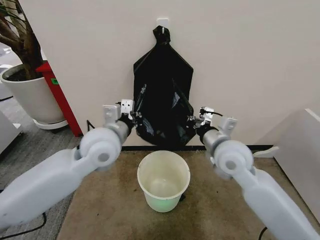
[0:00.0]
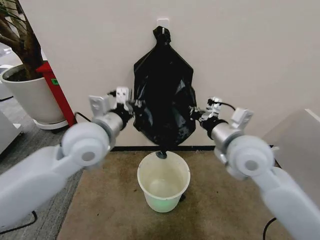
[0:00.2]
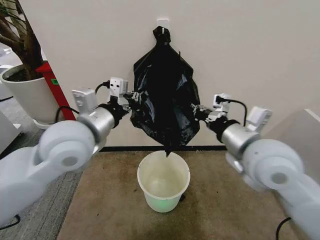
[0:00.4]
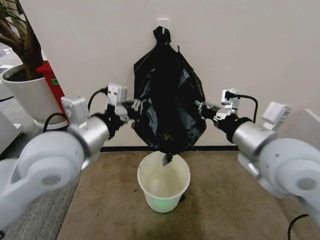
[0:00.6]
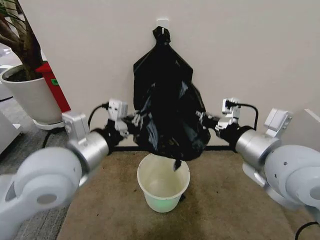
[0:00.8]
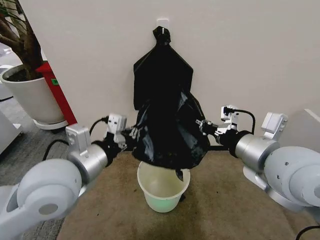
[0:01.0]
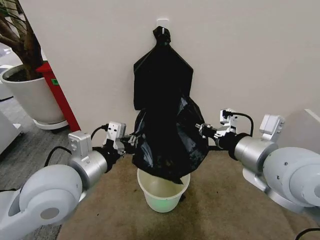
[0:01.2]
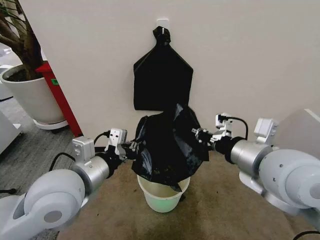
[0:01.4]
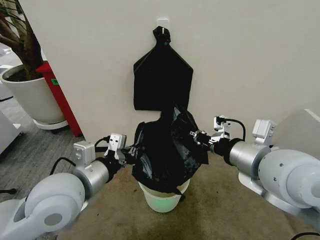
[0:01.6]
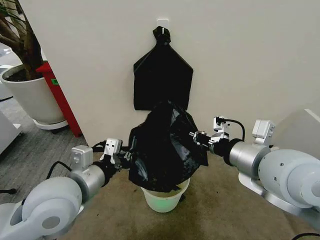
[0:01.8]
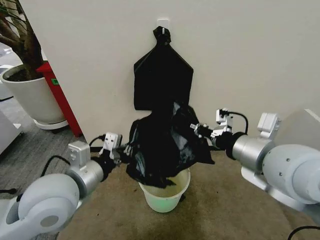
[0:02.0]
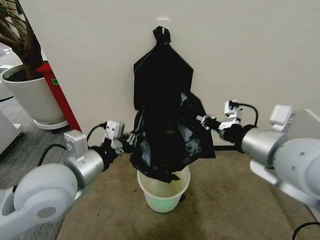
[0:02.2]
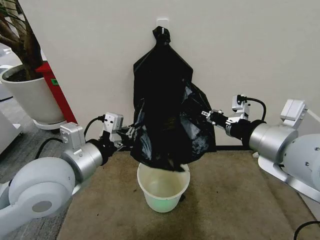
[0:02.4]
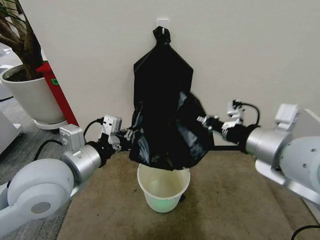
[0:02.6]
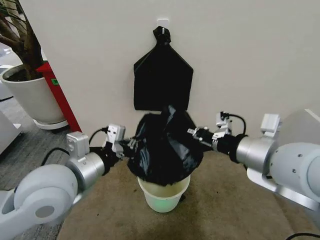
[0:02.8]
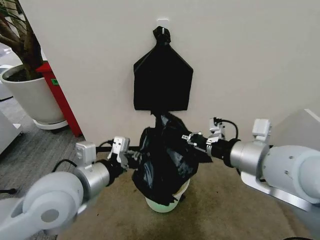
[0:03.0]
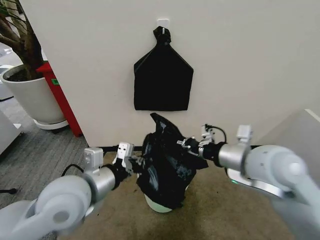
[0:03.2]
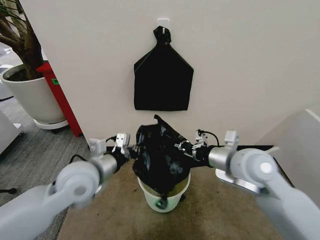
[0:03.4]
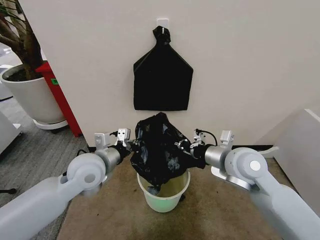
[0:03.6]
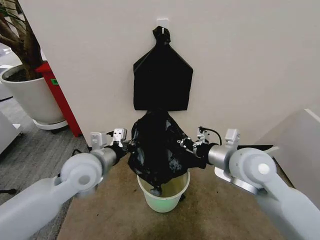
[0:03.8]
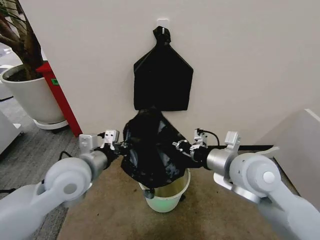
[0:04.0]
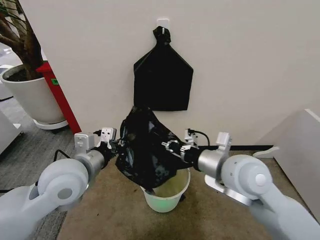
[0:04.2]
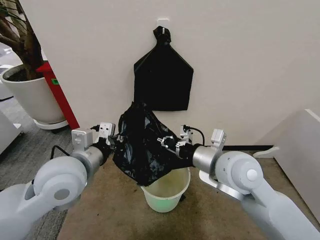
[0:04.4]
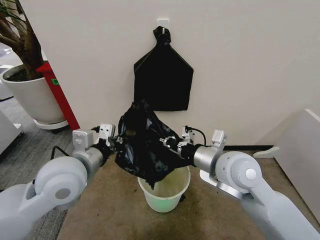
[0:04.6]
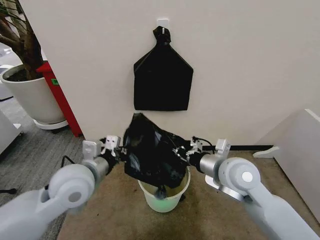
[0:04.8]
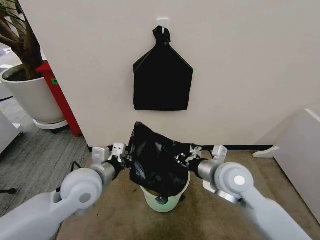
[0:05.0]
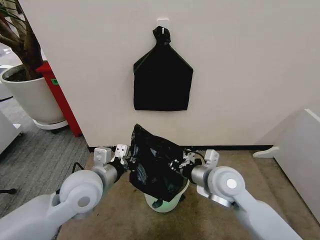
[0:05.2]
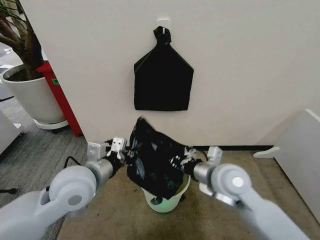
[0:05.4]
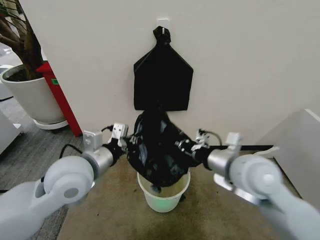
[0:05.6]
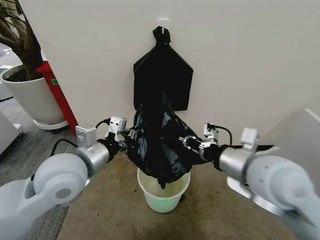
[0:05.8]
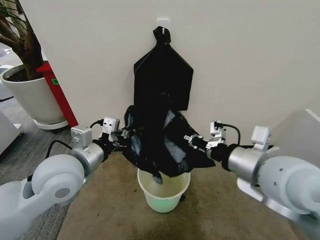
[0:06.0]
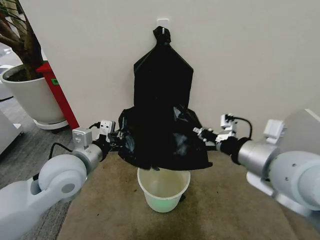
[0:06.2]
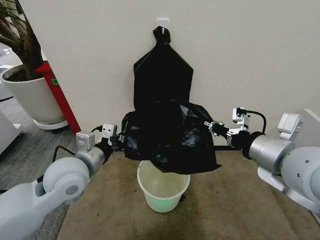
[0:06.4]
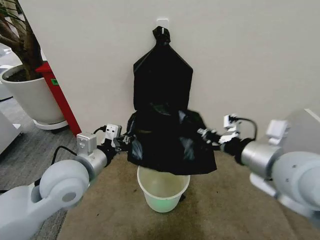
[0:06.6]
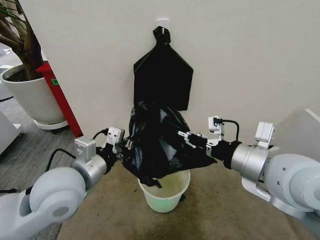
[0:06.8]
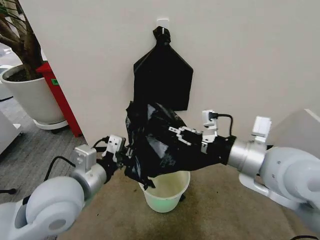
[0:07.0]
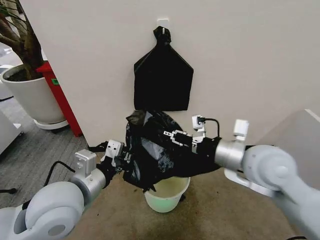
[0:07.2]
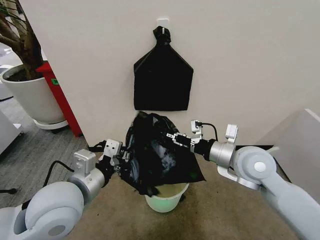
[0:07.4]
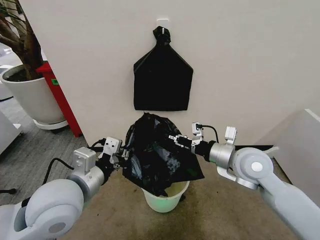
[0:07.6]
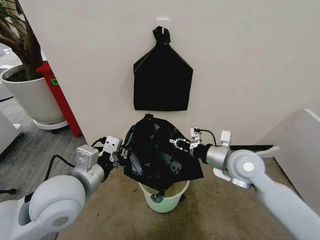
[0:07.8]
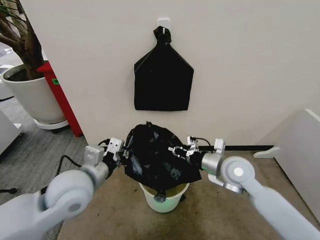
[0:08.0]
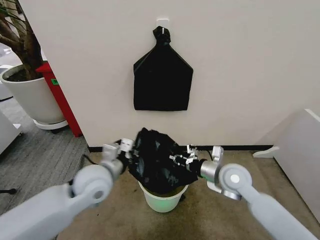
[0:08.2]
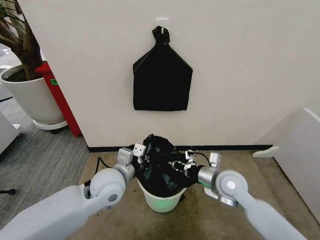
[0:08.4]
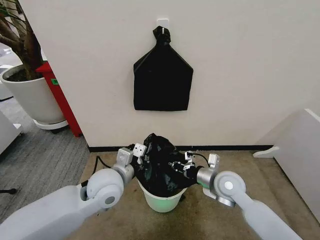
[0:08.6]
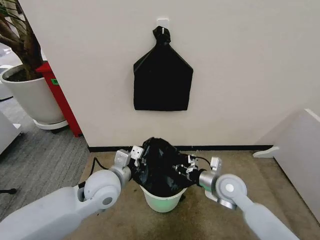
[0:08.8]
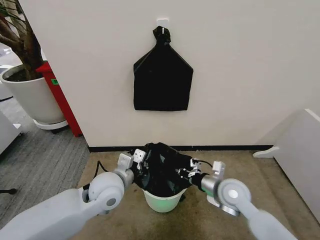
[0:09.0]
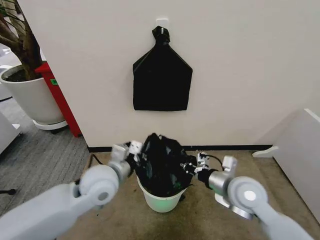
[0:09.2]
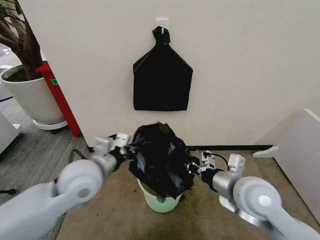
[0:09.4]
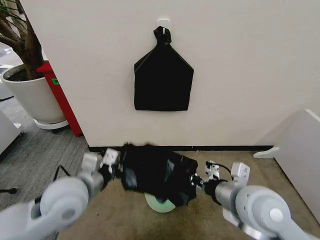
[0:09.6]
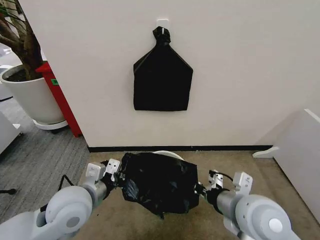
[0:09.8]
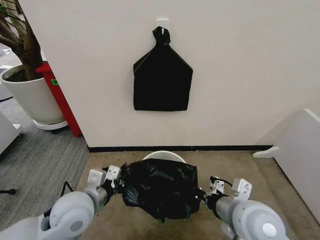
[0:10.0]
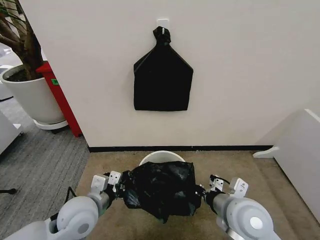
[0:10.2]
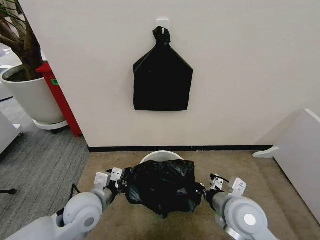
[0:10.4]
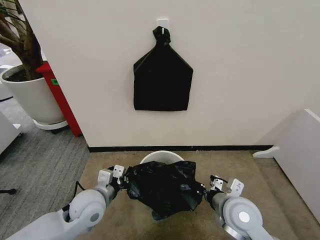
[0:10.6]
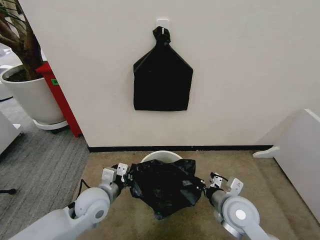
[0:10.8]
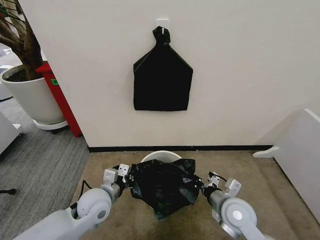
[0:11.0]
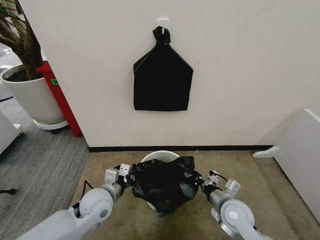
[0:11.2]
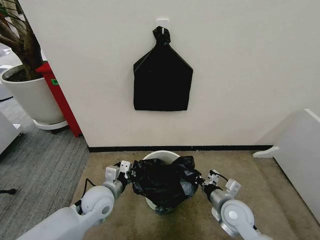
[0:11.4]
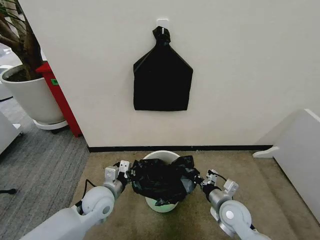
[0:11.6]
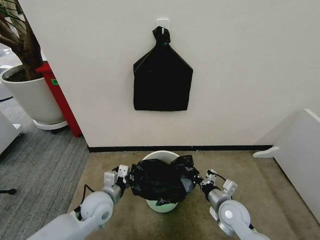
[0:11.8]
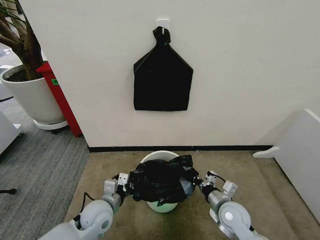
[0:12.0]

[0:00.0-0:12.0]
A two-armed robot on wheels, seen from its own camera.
Task of the whole recording: Place the garbage bag over the trash bin.
0:00.0 to 0:01.6: The right gripper is displaced backward and upward by roughly 15 cm; the left gripper is displaced backward by roughly 10 cm.
0:01.6 to 0:03.0: The grippers stay close to where they were, moving slightly.
0:03.0 to 0:04.4: The right gripper is displaced downward and to the left by some 10 cm.
0:04.4 to 0:06.0: The right gripper heads to the right, upward and backward, covering approximately 10 cm. The left gripper goes downward and returns, about 10 cm each way.
0:06.0 to 0:07.6: The right gripper travels downward and forward by about 15 cm; the left gripper is displaced backward by about 5 cm.
0:07.6 to 0:09.0: The right gripper goes some 10 cm downward; the left gripper moves downward, forward and to the right, some 15 cm.
0:09.0 to 0:10.4: The left gripper heads to the left, covering some 5 cm, and travels upward and back again, roughly 10 cm each way; the right gripper moves backward, about 5 cm, and reaches about 15 cm upward, then returns.
0:10.4 to 0:12.0: The left gripper moves downward, some 10 cm. The right gripper shifts some 15 cm downward.

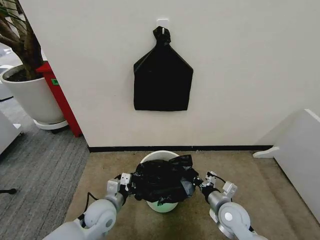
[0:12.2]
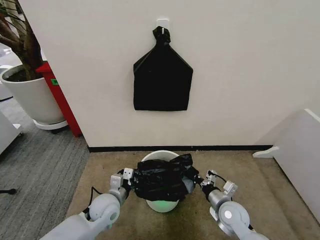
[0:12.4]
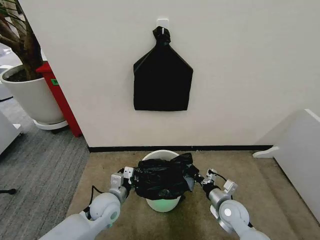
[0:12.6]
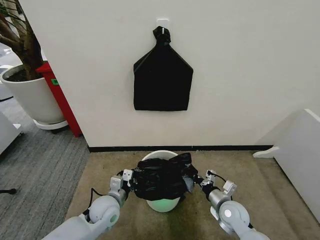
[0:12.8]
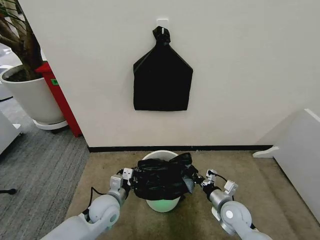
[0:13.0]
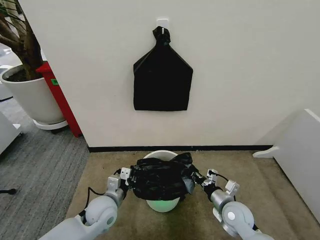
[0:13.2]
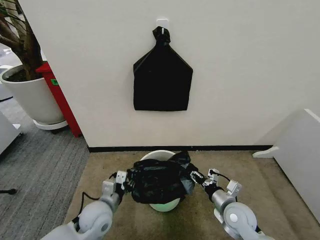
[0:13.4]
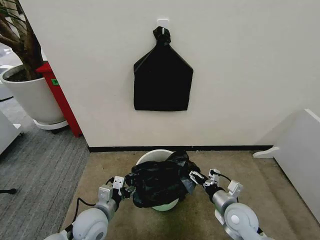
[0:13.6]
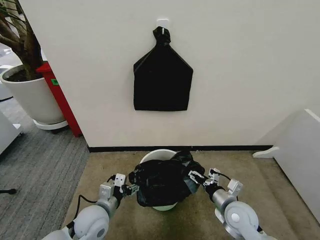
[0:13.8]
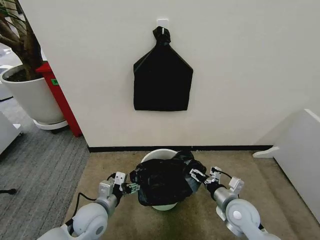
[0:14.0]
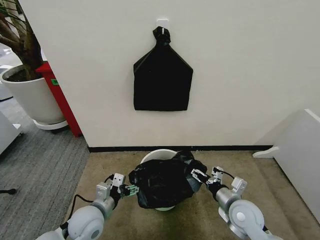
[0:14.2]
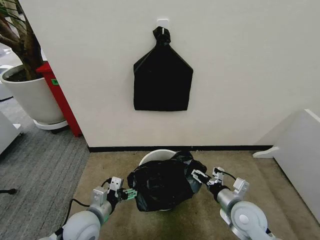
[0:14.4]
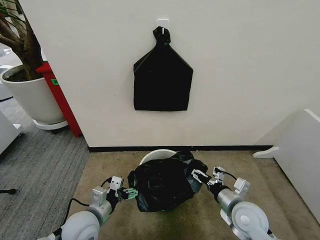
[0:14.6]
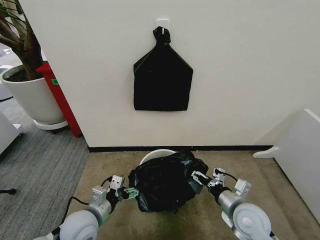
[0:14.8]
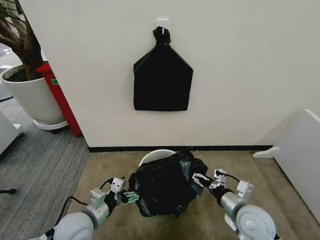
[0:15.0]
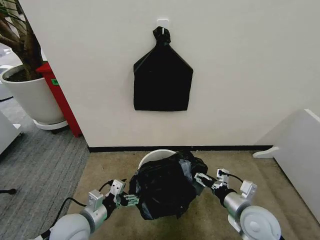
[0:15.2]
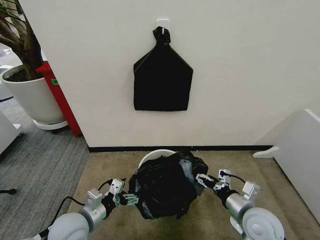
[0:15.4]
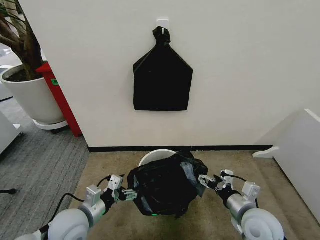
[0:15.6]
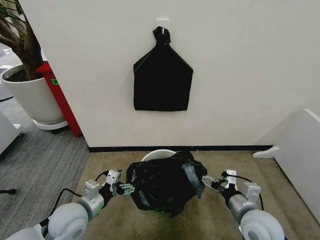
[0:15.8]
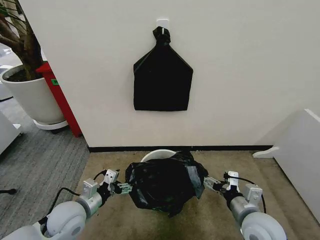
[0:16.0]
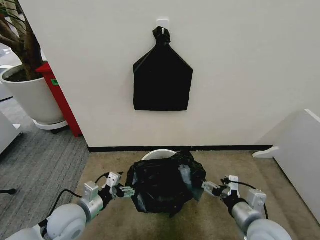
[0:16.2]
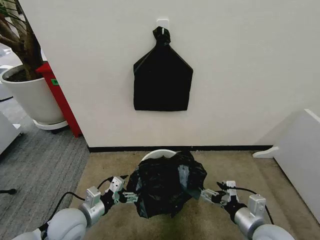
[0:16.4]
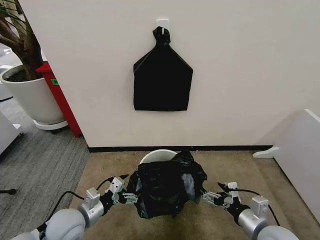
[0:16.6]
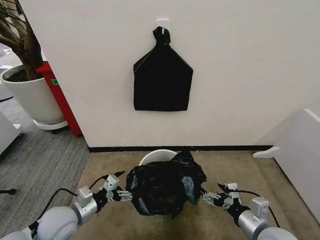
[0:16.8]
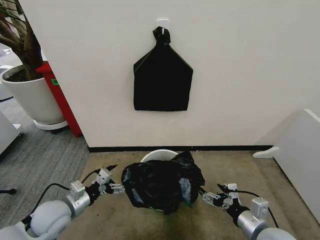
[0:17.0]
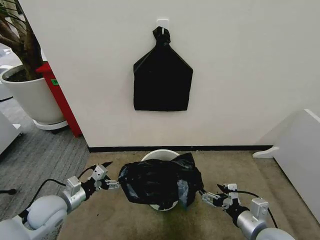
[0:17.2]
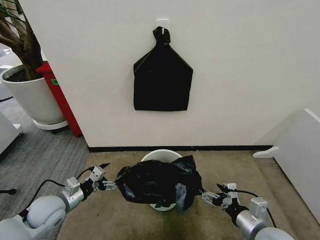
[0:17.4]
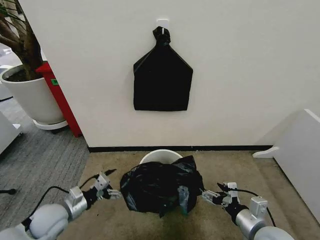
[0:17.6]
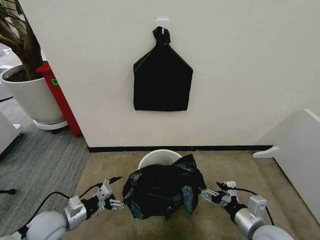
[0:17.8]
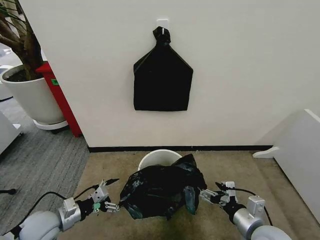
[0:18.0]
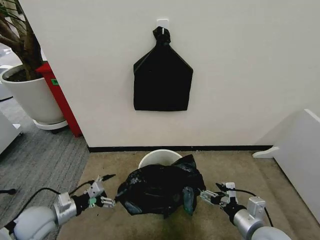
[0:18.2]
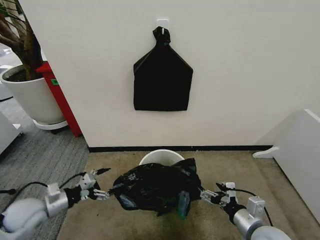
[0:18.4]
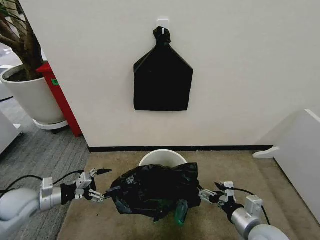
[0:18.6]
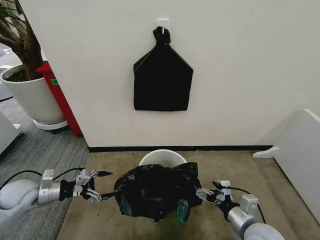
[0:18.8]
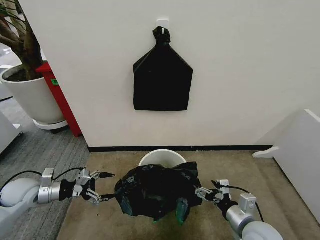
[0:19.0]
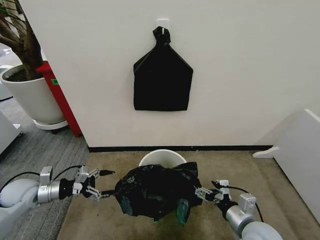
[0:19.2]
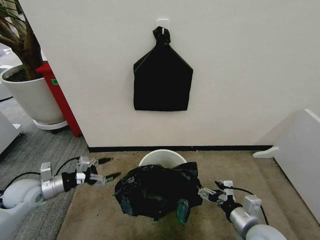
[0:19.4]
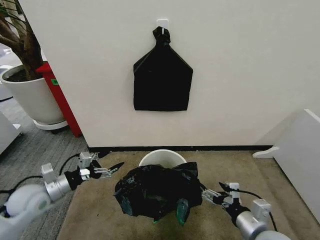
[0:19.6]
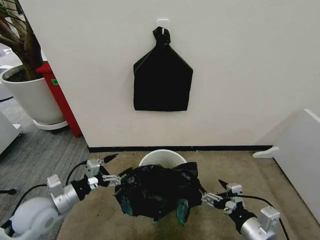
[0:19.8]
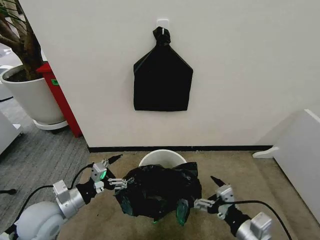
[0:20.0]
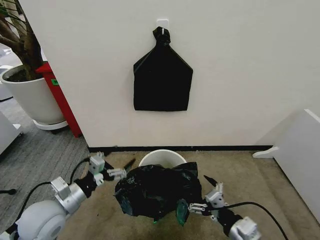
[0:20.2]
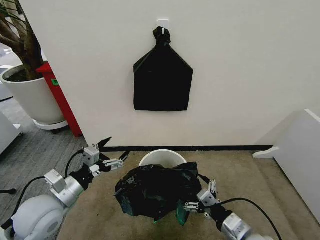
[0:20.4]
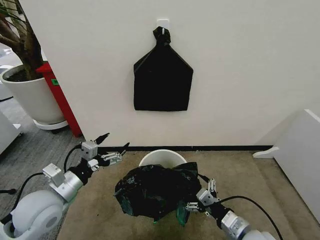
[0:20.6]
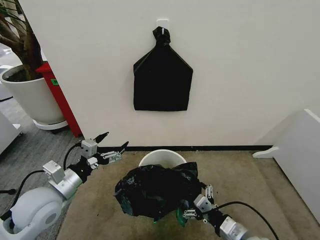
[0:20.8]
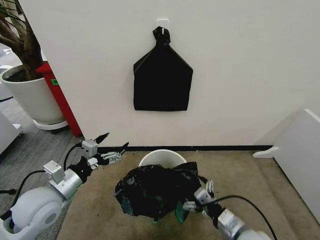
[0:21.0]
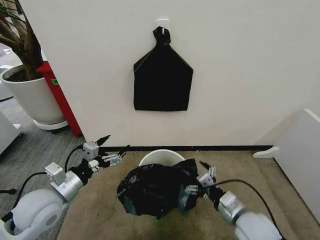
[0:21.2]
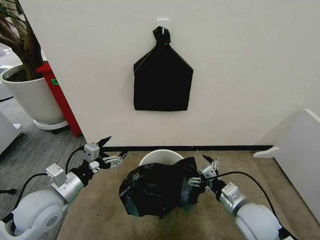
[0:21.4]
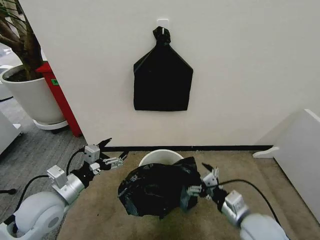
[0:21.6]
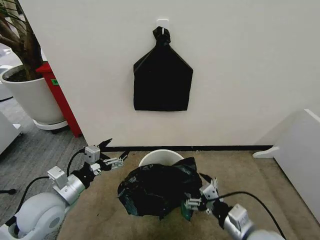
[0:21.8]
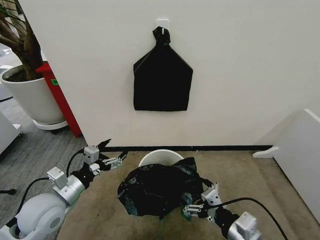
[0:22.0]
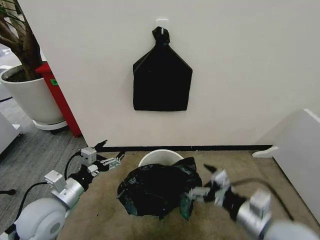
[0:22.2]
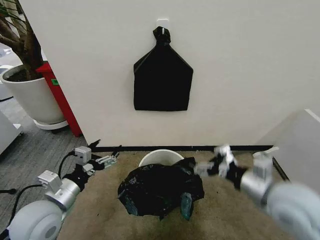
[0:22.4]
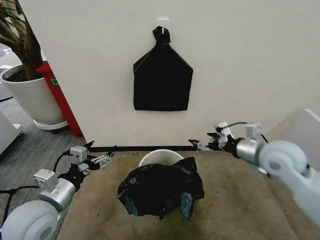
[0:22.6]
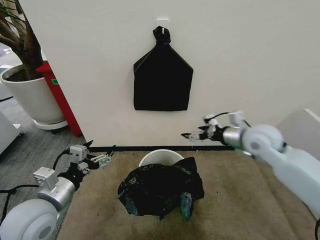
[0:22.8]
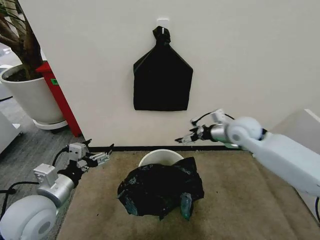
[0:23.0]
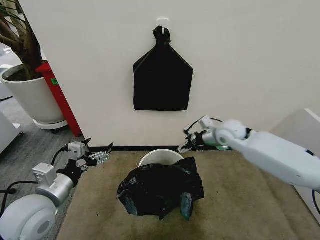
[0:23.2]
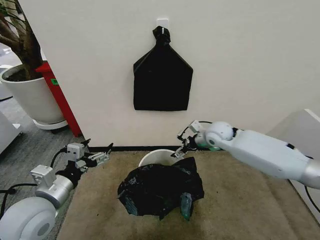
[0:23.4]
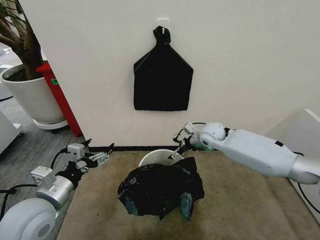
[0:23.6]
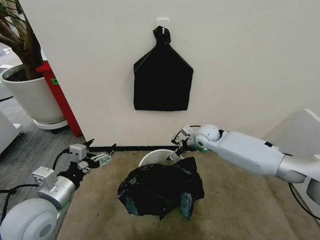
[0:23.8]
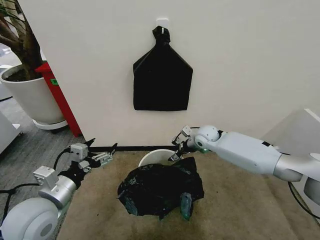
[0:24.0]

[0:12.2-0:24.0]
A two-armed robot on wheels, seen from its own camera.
Task of the whole recording: Place the garbage bag over the trash bin.
0:12.2 to 0:13.6: The left gripper opens, while the right gripper opens its fingers.
0:13.6 to 0:15.2: The left gripper moves some 5 cm, while the right gripper travels upward by about 5 cm.
0:15.2 to 0:16.6: The right gripper is displaced backward by roughly 5 cm.
0:16.6 to 0:18.2: The left gripper heads to the left, covering about 10 cm.
0:18.2 to 0:19.6: The left gripper shifts some 5 cm upward.
0:19.6 to 0:21.0: The left gripper is displaced to the right and upward by roughly 10 cm.
0:21.0 to 0:22.6: The right gripper moves forward and backward over about 20 cm, changing direction 2 times.
0:22.6 to 0:24.0: The right gripper is displaced forward, downward and to the left by approximately 25 cm.
